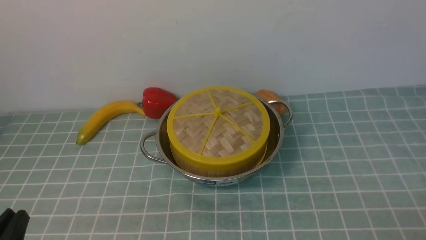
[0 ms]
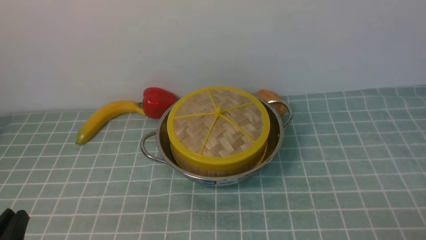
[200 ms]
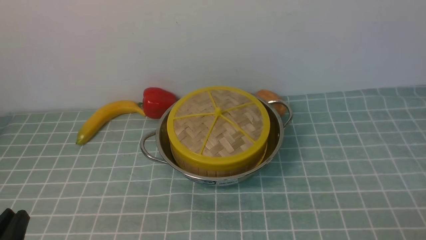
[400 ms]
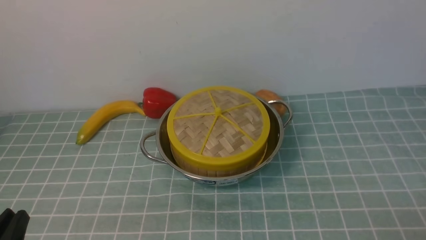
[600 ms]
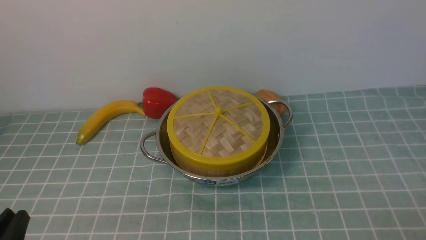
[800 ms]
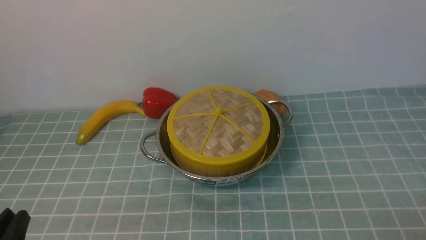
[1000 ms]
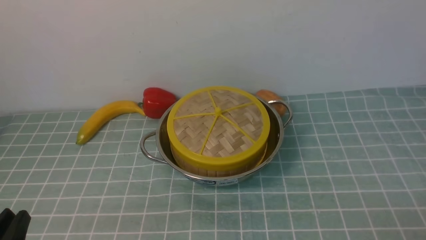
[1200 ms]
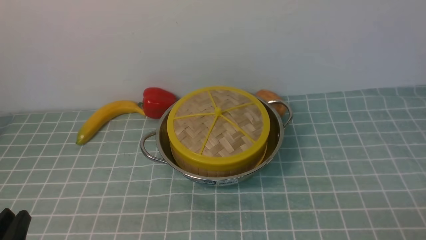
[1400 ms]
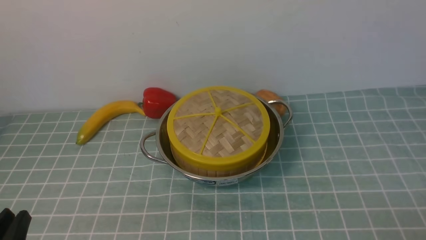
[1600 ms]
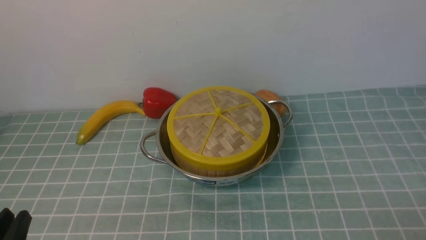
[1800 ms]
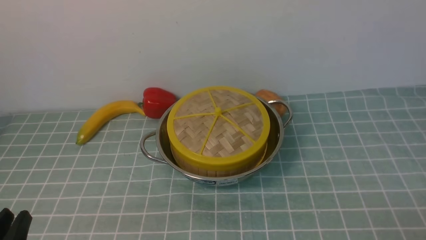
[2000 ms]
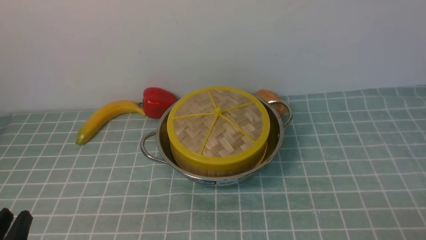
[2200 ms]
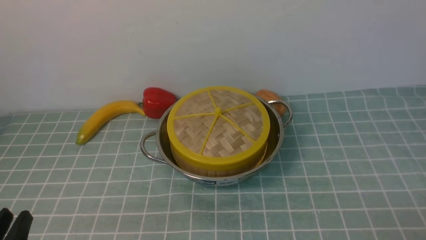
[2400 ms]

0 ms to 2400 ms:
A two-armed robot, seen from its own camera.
Task of the whole recording: place the steamer in the pot on the blue tablecloth, and put the lid on the steamer.
0 ms to 2400 ms: Neither gripper changes place.

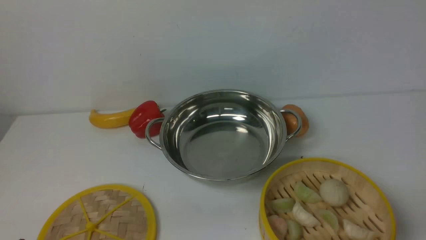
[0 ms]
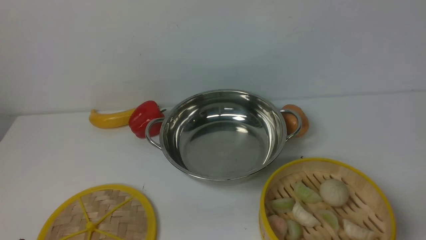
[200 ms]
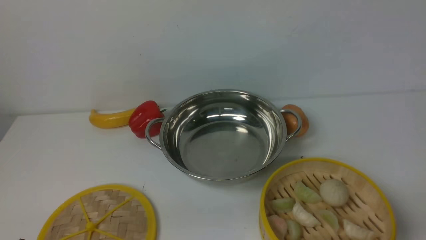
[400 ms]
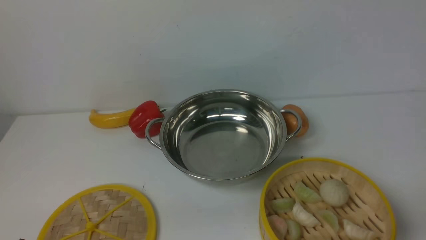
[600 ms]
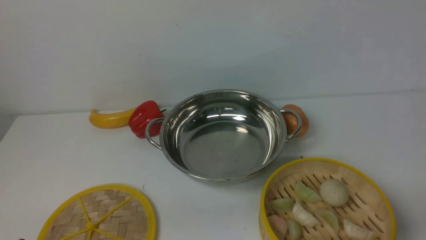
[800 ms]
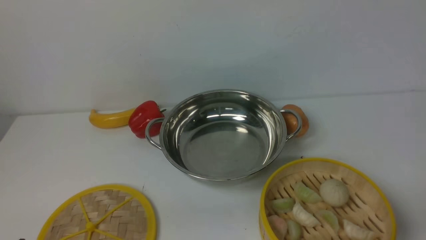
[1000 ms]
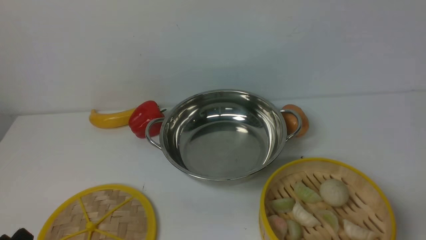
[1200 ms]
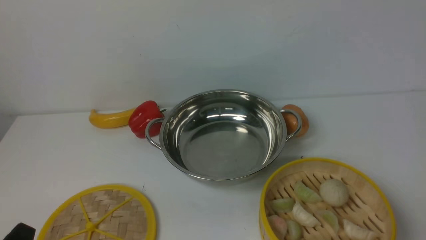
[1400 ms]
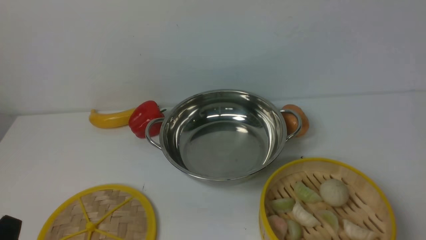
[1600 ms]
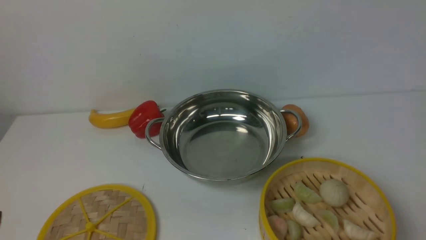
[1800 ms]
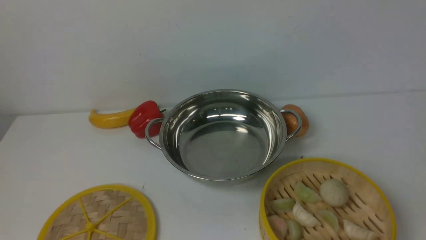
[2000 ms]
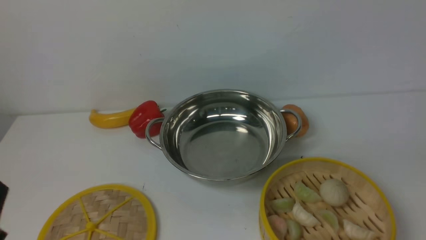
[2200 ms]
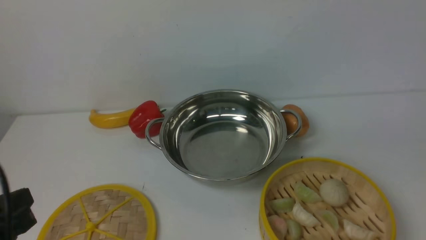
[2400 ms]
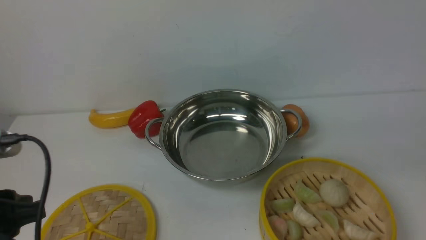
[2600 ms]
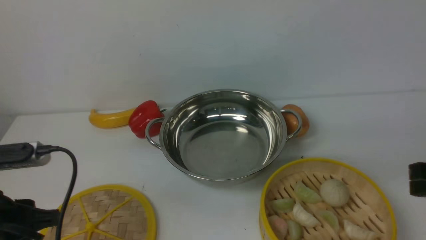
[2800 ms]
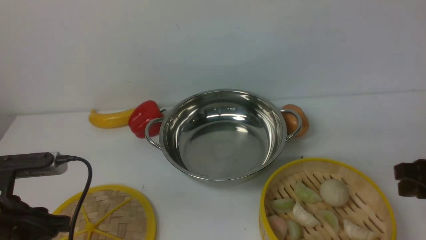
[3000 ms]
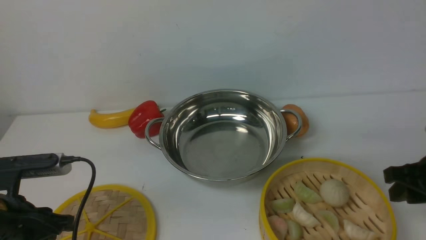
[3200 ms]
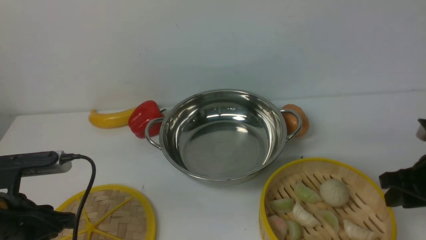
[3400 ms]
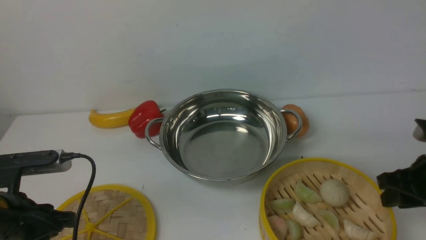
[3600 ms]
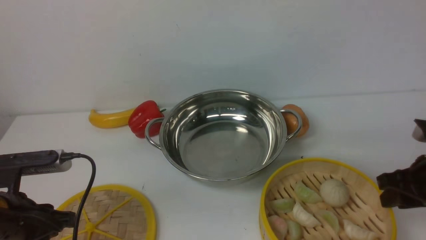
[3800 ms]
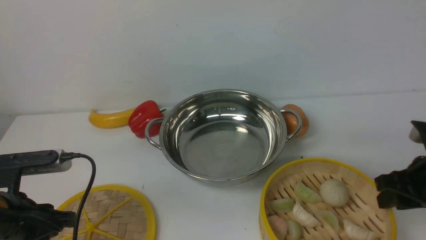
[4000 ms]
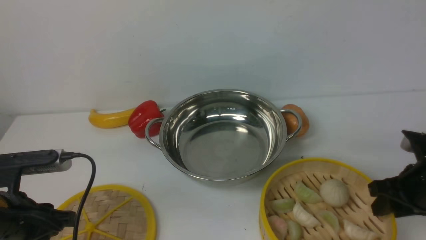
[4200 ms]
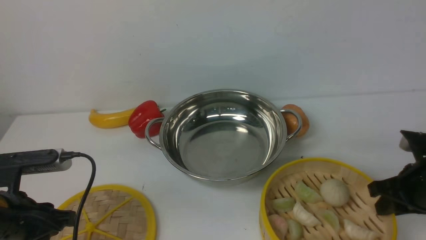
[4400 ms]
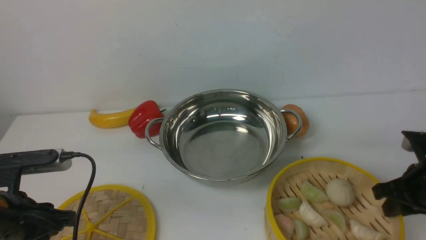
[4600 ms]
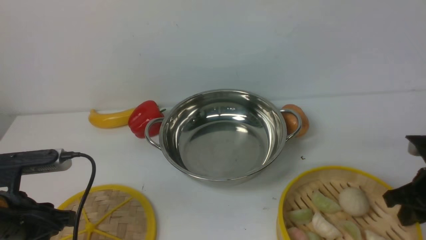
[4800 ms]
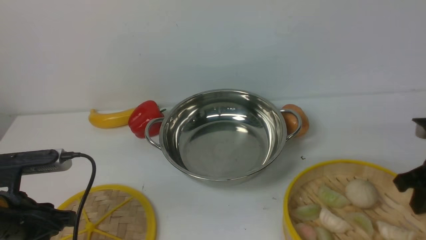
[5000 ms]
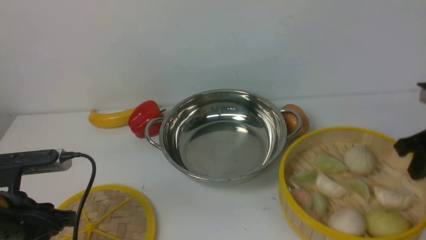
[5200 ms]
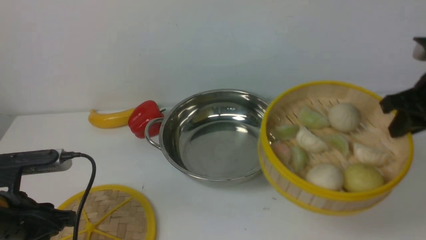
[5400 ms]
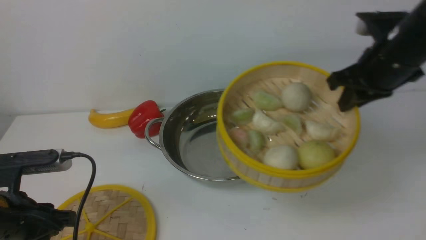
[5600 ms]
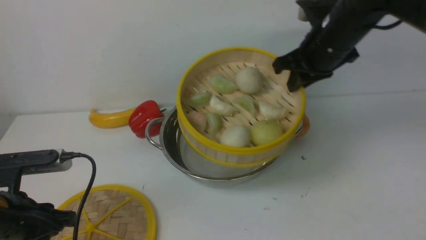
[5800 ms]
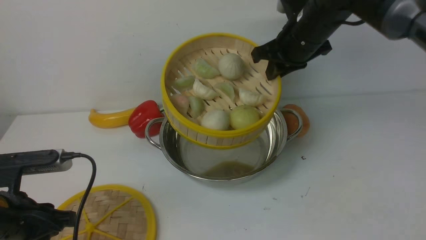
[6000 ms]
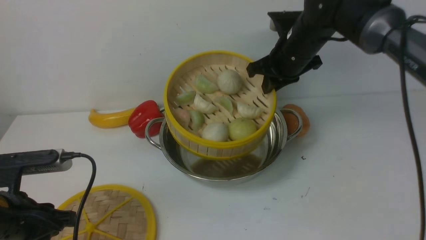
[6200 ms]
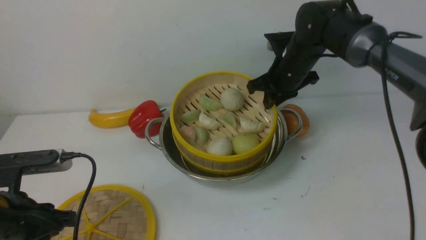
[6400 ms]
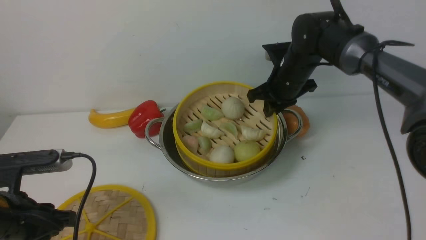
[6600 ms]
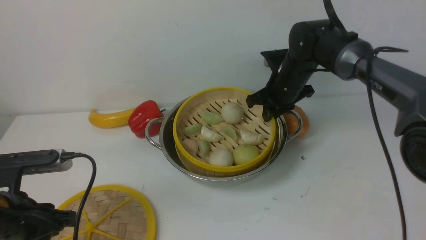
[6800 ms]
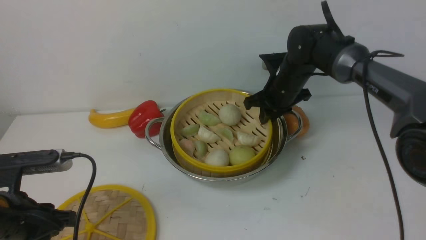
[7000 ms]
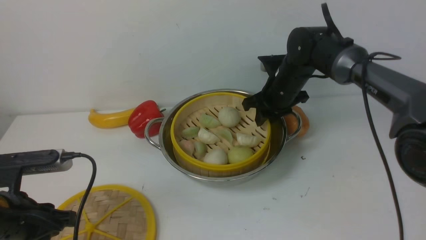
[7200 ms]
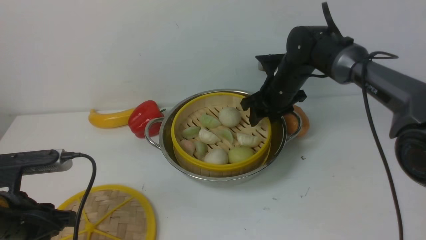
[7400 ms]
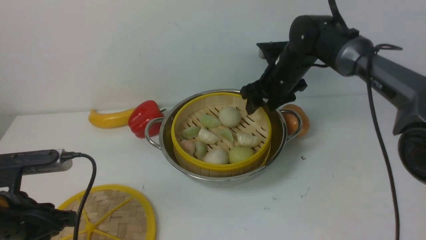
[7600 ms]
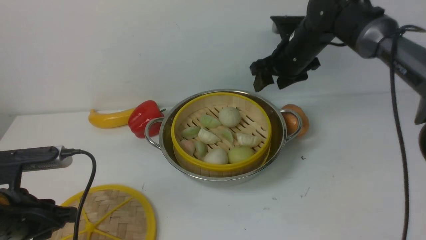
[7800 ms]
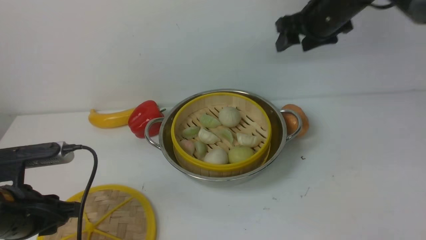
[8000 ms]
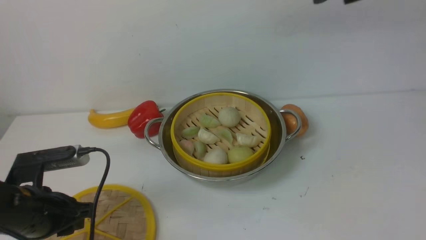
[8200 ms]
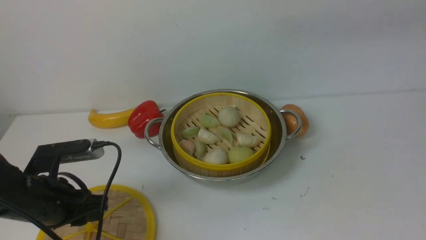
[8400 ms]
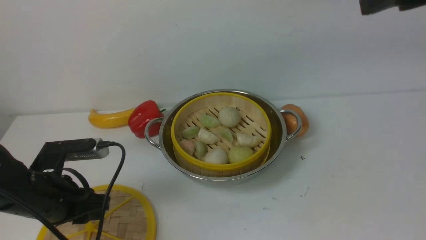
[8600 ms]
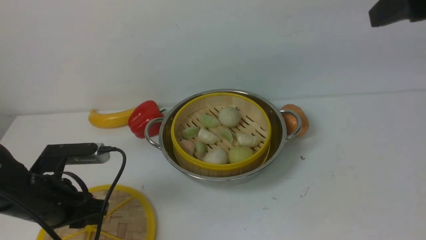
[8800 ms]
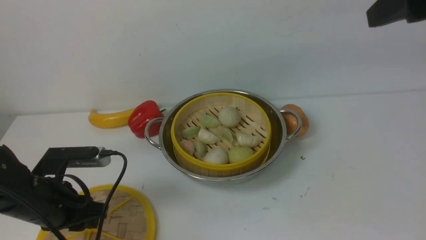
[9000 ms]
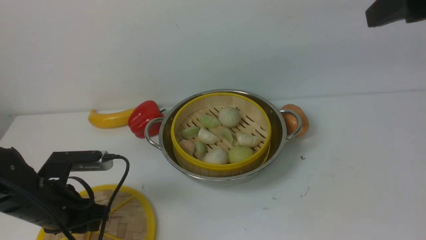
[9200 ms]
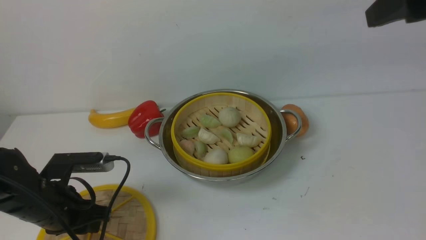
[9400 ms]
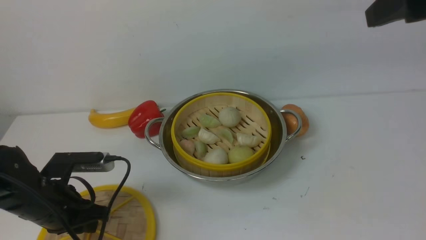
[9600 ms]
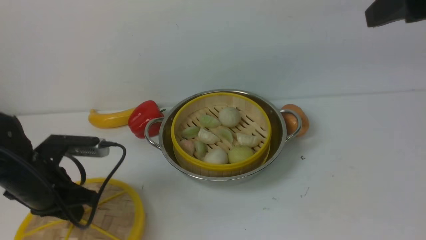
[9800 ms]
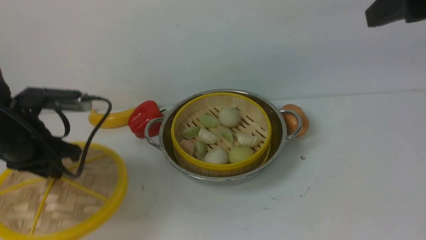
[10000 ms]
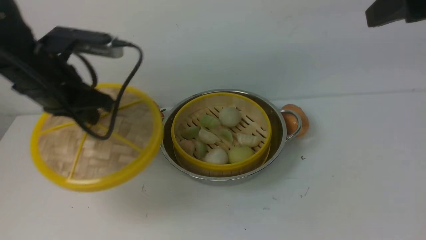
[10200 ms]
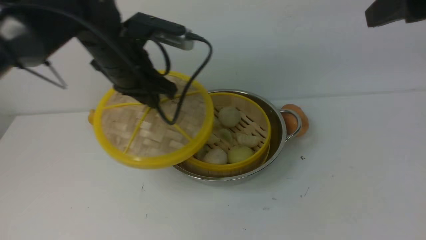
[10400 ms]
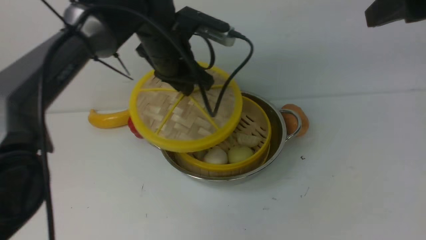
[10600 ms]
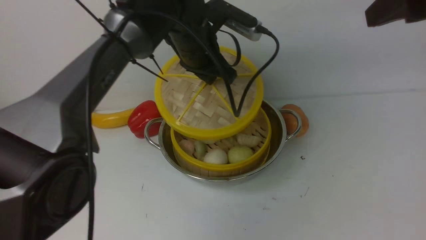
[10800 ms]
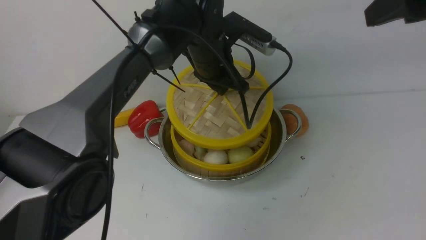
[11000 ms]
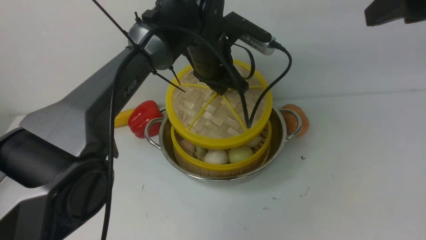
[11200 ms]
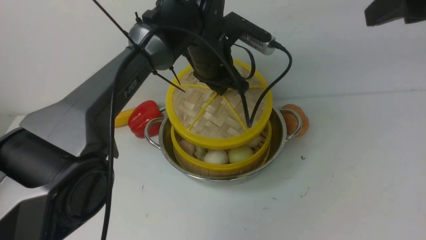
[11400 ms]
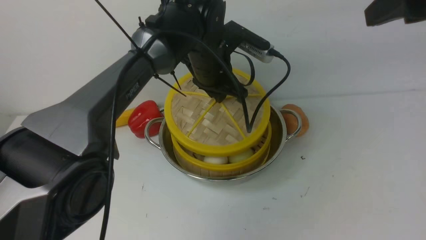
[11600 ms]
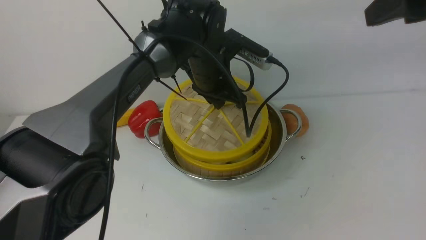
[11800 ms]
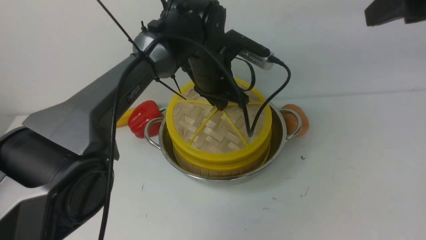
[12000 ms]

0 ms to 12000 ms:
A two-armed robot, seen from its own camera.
Task of the whole recording: place the steamer in the pot on the white table, and put the lid on the steamer.
Step, 0 ms to 5400 ms: use the right arm to lift the steamer closest to it.
Step, 5600 ms to 8000 ms: use the right arm to put the steamer into the iron steamer pot in the middle.
Step, 8200 ms to 10200 ms: use the left arm to lift the lid of the steamer.
1600 ms to 3000 ms: The grippers both shift forward by roughly 15 cm.
3000 ms to 4400 ms: The right gripper moves downward, roughly 5 cm.
4400 ms to 6000 ms: The right gripper moves forward, to the left and upward, about 25 cm.
6000 ms to 7600 ms: The right gripper travels downward by approximately 10 cm, and opens up.
7600 ms to 9000 ms: The right gripper travels upward, backward and to the right by about 35 cm. The left gripper moves forward, about 5 cm.
9000 ms to 10400 ms: The left gripper shifts some 25 cm forward, upward and to the right, and closes.
10400 ms to 12000 ms: The left gripper shifts some 15 cm to the right and downward.

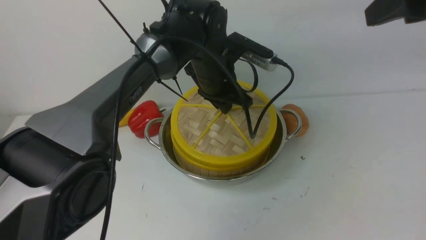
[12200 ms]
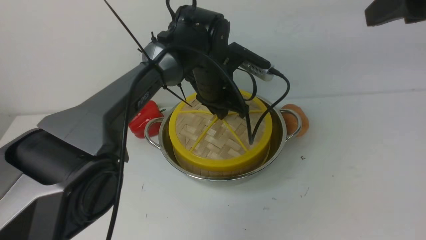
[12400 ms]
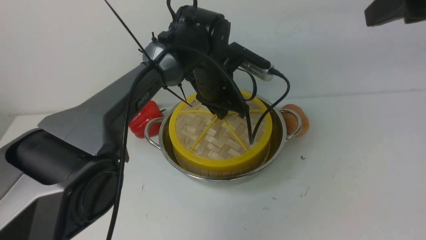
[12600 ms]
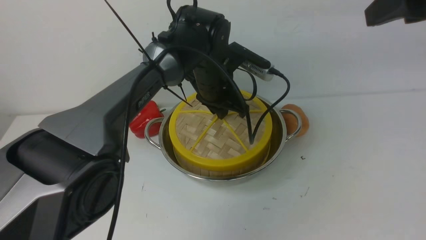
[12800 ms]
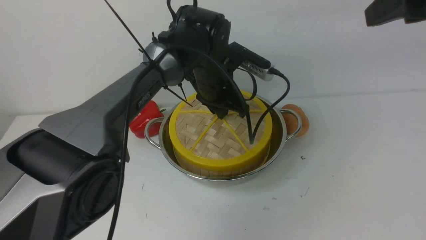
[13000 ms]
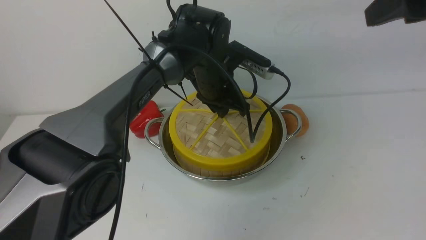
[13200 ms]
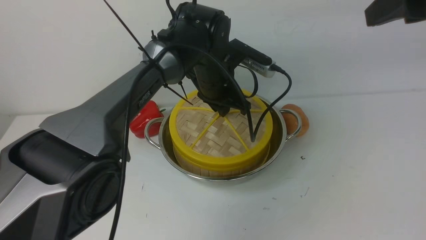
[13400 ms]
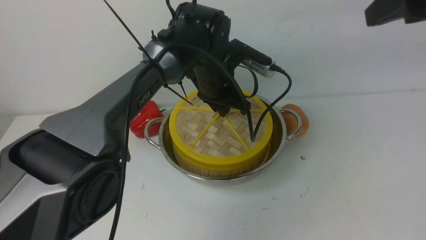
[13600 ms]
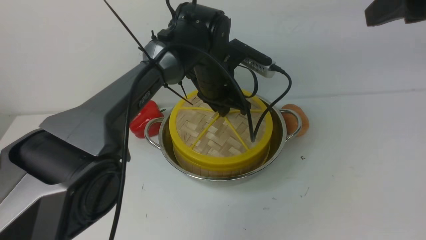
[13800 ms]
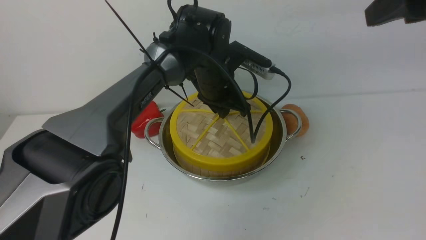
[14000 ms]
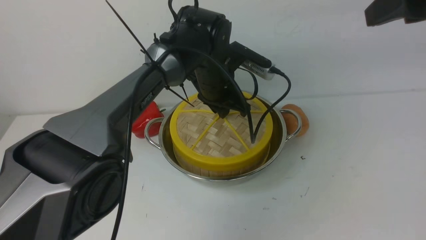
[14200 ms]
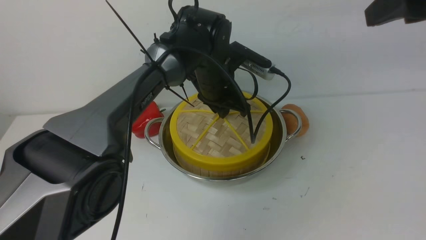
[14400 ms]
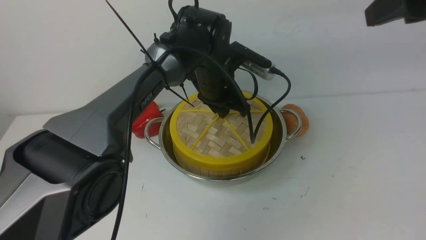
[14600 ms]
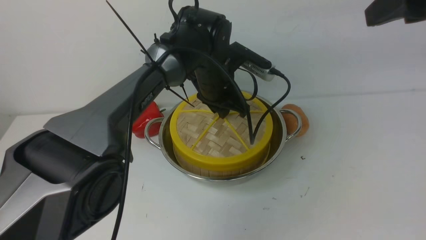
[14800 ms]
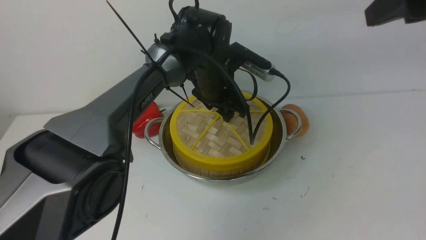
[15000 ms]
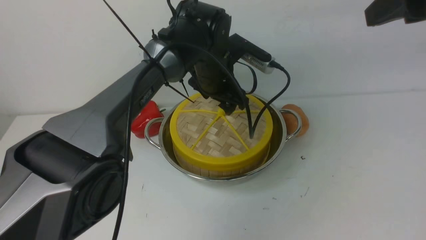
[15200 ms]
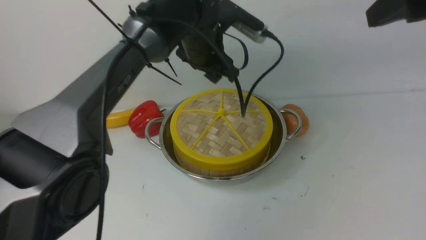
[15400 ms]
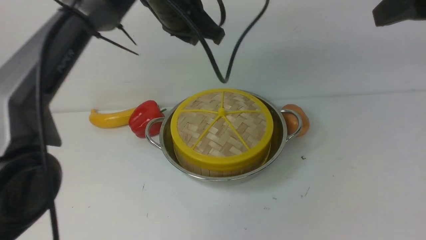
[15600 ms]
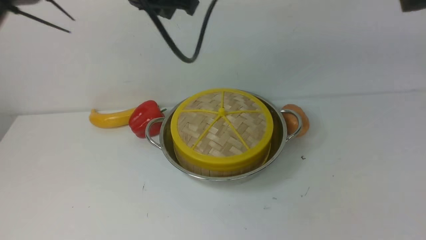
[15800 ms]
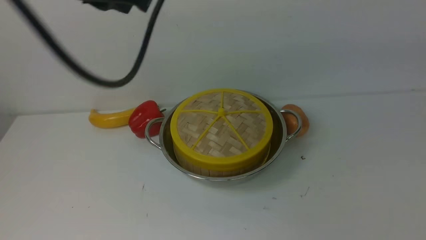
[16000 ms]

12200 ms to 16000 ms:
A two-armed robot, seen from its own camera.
Task of the whole recording: place the steamer in the pot on the white table, and put the lid on the steamer.
12200 ms to 13400 ms: The grippers move only a little.
13400 ms to 14800 ms: Both grippers stay put.
14800 ms to 16000 ms: The left gripper heads upward, backward and to the left, covering approximately 30 cm, and closes up; the right gripper heads backward and upward, covering about 10 cm, and closes.
